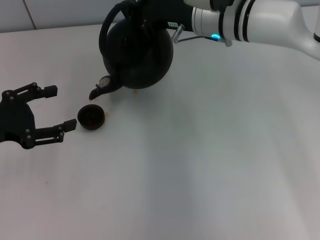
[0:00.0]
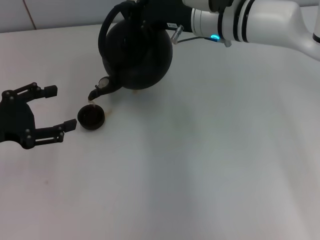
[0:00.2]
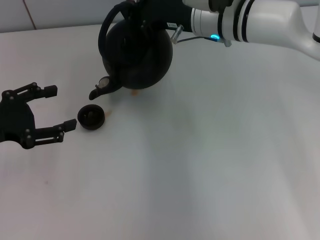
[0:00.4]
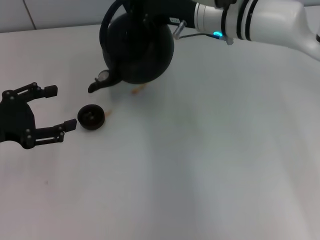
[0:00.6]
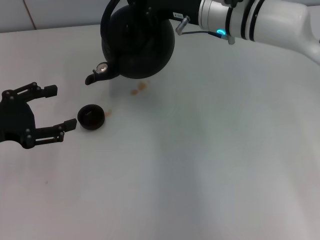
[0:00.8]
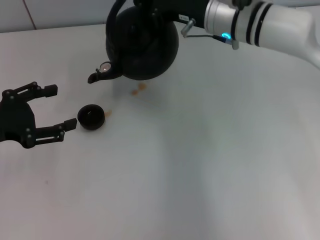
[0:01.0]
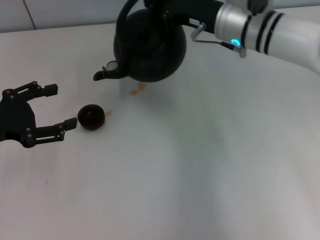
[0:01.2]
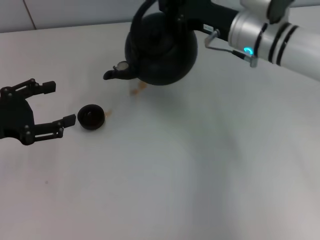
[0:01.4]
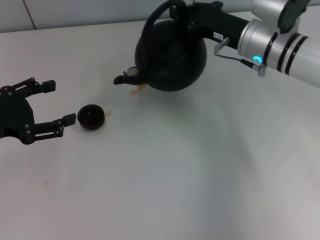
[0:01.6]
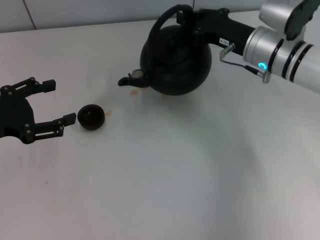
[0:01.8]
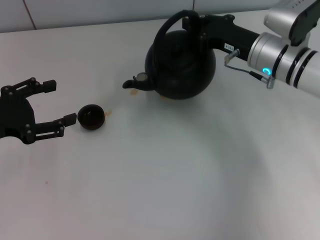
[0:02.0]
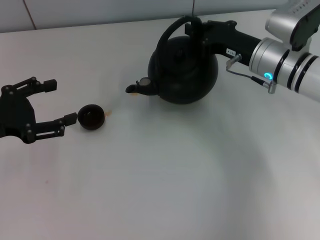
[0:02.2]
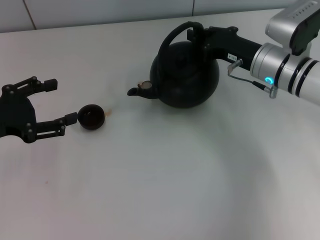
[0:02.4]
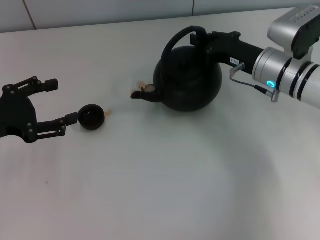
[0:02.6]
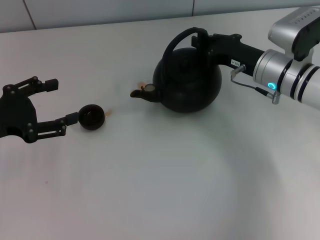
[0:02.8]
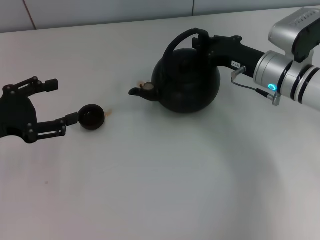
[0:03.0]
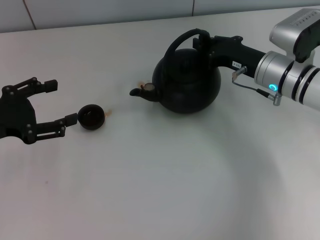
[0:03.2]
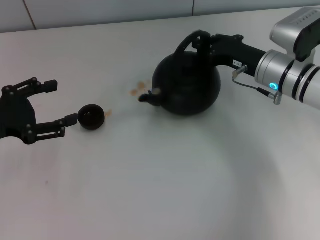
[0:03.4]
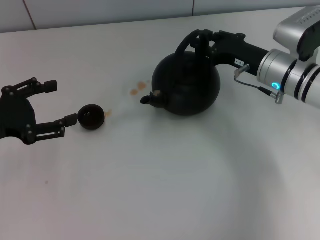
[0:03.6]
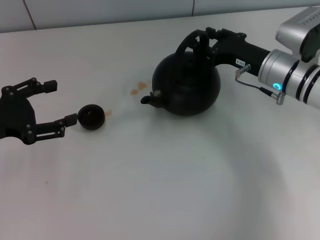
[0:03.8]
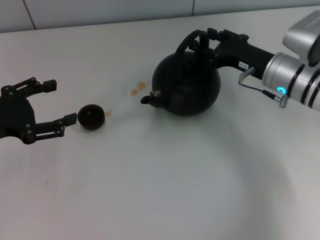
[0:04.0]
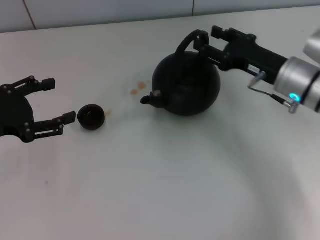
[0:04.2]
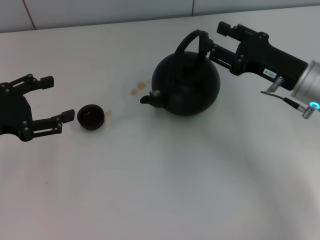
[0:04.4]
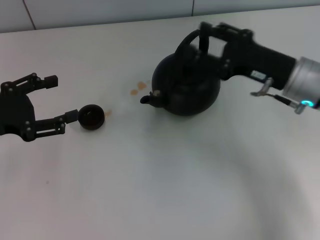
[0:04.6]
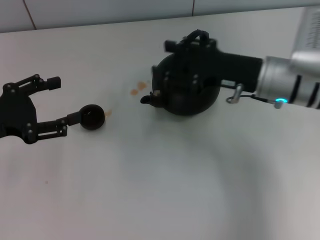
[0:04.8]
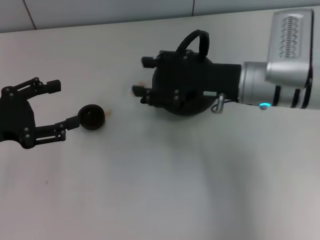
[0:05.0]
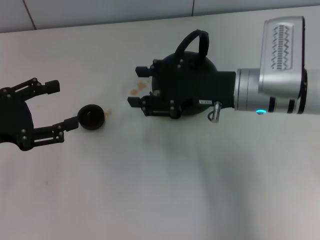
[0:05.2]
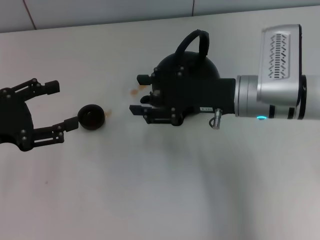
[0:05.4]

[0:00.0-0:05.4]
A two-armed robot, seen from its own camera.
Task of the whole recording: Grasp the handle of the teapot with one hand and pour tea into the teacup.
Step, 0:01.6 to 0:03.4: Put down the teapot with the right gripper.
0:00.0 to 0:01.4: The right gripper goes about 5 cm to the right.
0:01.4 to 0:02.8: The right gripper moves about 5 cm.
0:02.8 to 0:04.0: The right gripper opens up.
0:04.0 to 0:05.4: The right gripper moves to the left, some 5 cm.

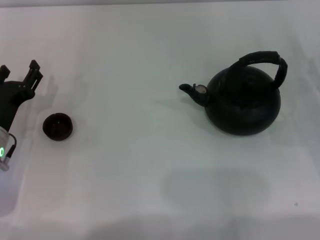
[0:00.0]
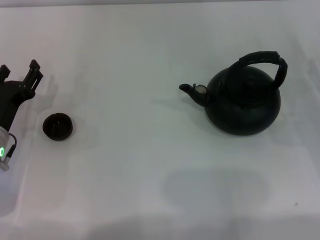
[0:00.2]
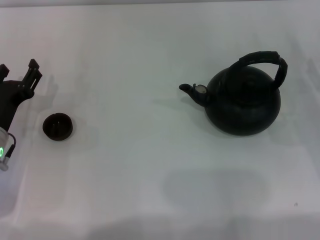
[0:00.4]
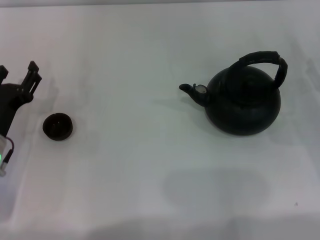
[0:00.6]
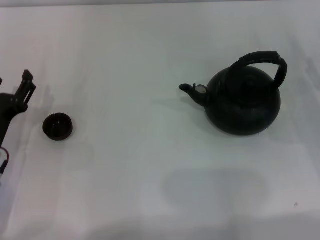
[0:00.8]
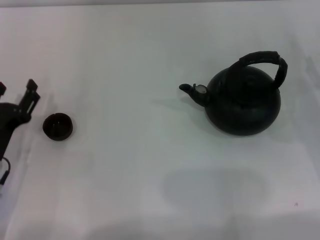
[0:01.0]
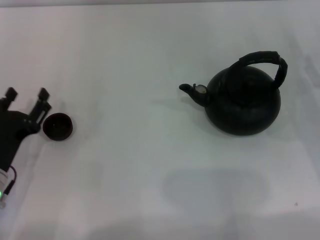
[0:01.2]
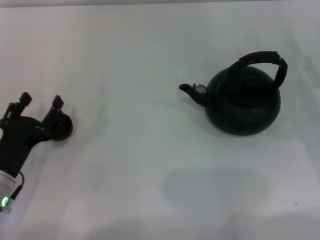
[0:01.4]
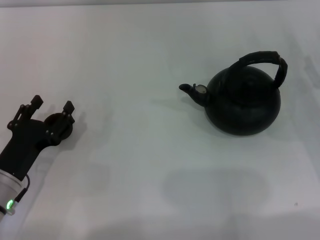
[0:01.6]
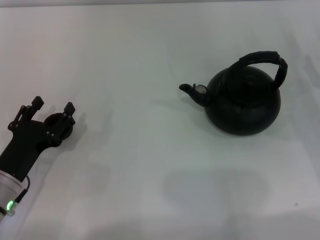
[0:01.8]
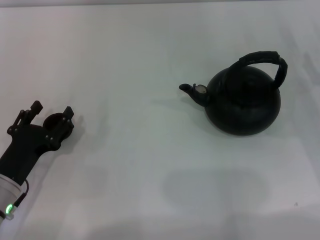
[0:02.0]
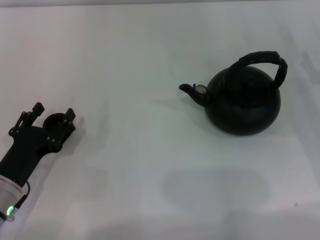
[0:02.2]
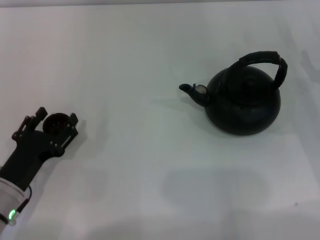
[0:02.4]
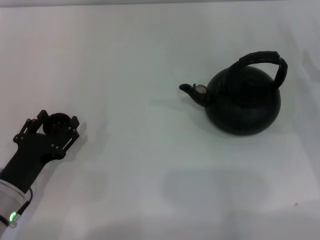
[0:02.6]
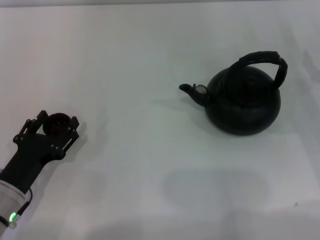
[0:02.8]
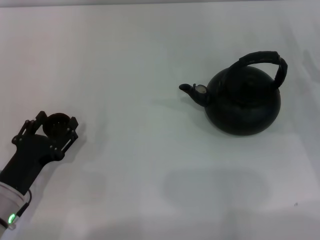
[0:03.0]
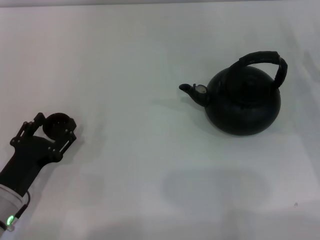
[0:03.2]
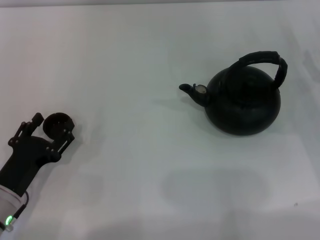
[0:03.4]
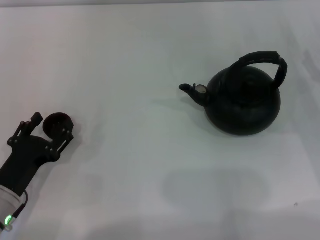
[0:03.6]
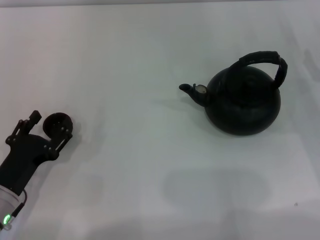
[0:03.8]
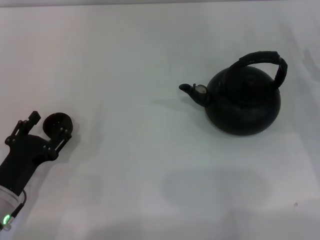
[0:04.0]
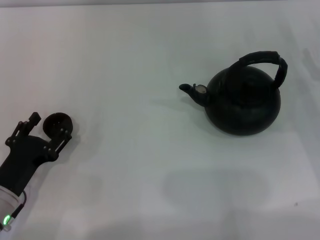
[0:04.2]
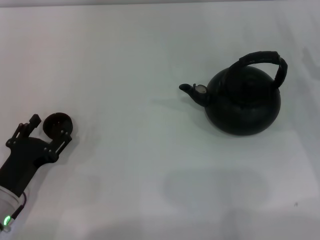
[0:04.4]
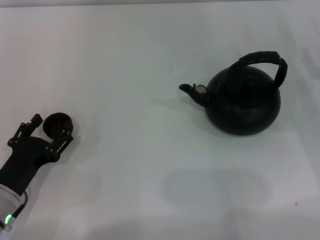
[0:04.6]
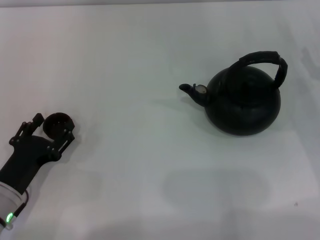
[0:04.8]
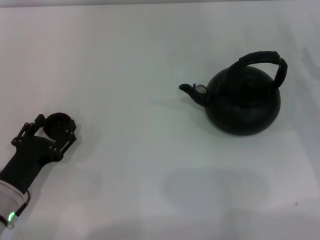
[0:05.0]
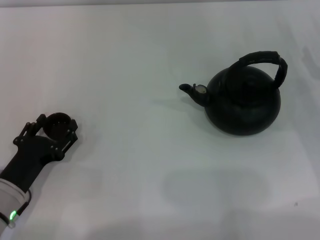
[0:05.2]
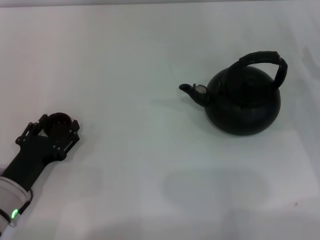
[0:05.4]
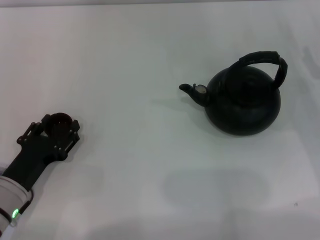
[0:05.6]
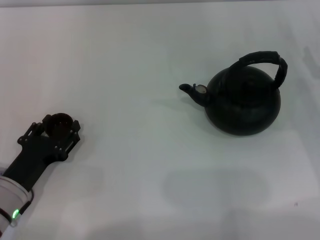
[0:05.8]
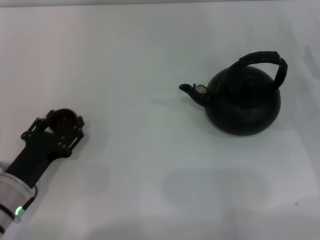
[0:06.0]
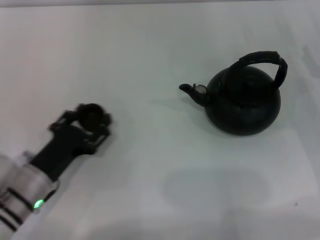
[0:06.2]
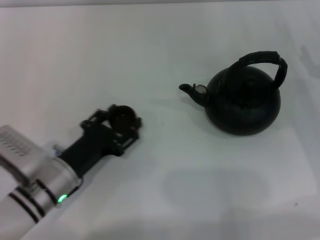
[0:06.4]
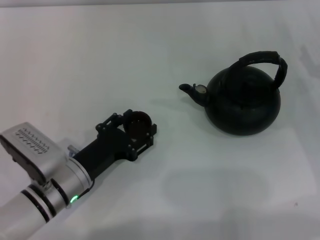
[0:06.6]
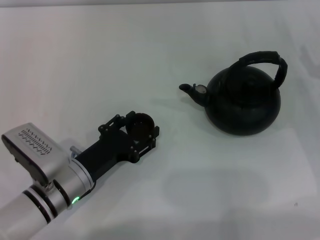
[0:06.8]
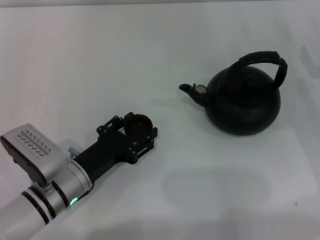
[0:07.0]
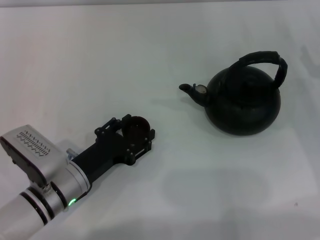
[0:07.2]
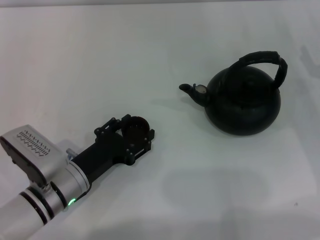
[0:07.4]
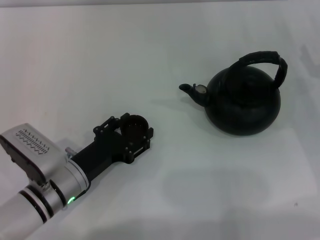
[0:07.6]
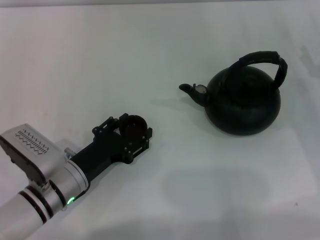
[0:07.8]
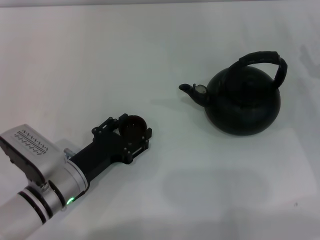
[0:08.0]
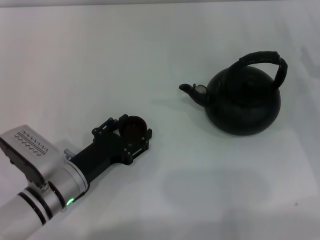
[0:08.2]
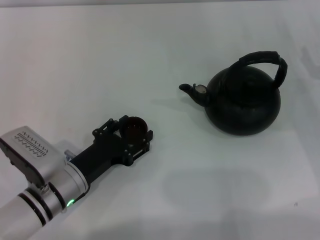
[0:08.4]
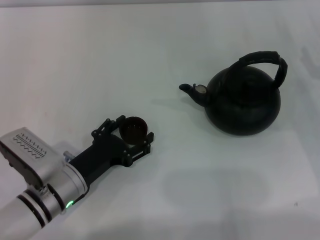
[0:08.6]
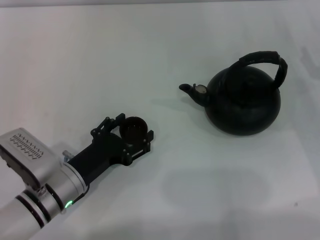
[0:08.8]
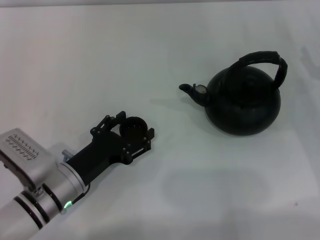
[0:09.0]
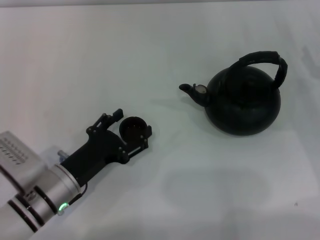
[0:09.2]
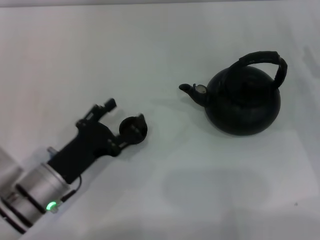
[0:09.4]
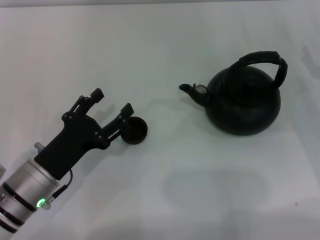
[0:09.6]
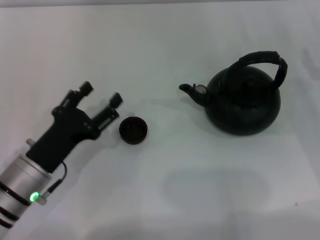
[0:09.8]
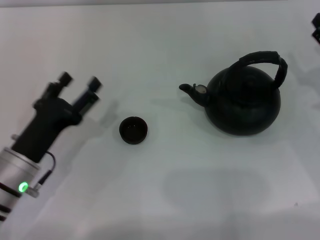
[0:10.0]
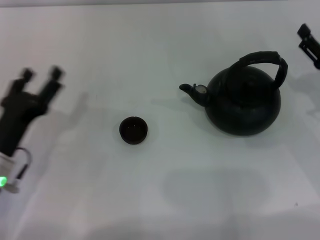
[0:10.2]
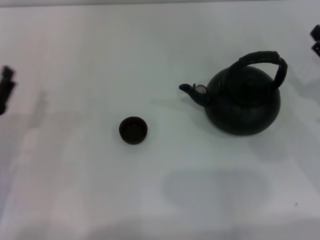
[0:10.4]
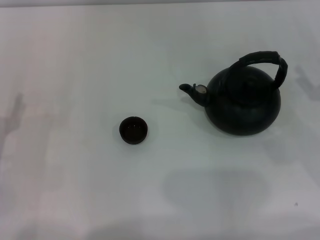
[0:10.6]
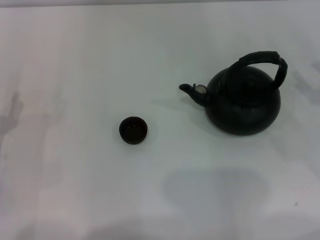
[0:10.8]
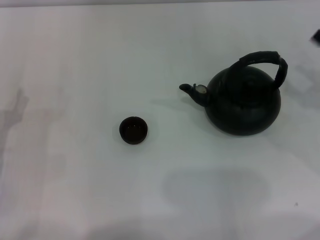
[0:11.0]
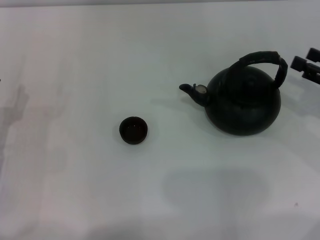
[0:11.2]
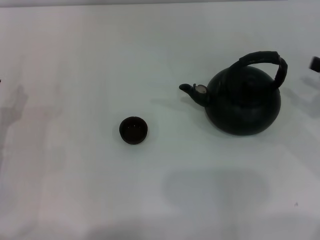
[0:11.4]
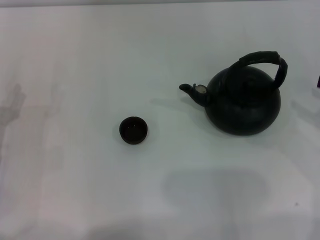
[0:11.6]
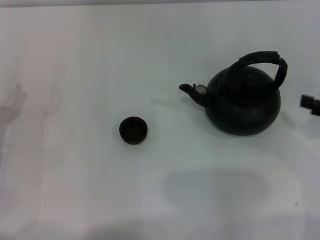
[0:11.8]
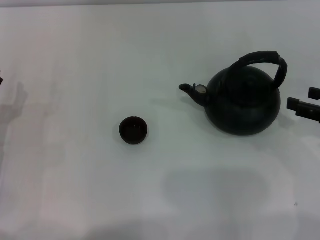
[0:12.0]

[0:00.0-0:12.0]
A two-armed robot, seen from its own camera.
Task of the whole recording: Grasp the handle of the teapot with one hand and pour tea into the teacup.
Step, 0:00.0 to 0:05.8: Pick up the teacup with the left gripper.
Step, 0:06.2 to 0:09.6: Place the teacup in the center of view with the left gripper.
0:00.0 to 0:01.6: The left gripper is displaced backward by approximately 5 cm.
0:01.6 to 0:03.0: The grippers move only a little.
0:03.0 to 0:04.4: Neither gripper changes place.
0:04.4 to 0:06.0: The left gripper closes its fingers.
0:06.0 to 0:07.6: The left gripper travels to the right by approximately 5 cm.
0:07.6 to 0:09.0: The left gripper opens up.
0:09.0 to 0:10.4: The left gripper shifts about 10 cm to the left.
0:10.4 to 0:12.0: The right gripper shifts roughly 5 cm upward.

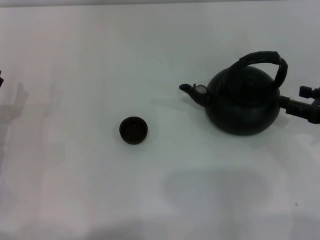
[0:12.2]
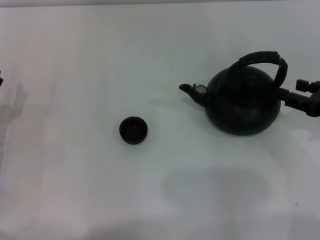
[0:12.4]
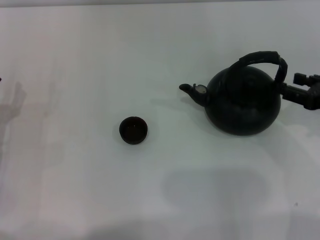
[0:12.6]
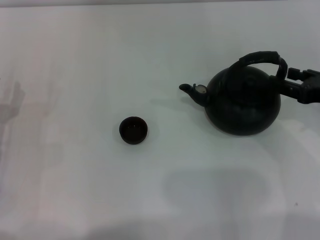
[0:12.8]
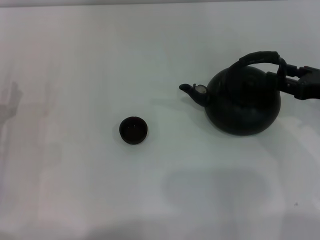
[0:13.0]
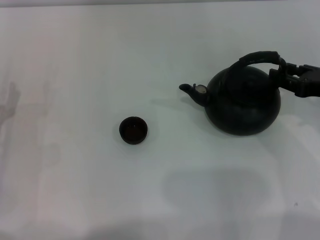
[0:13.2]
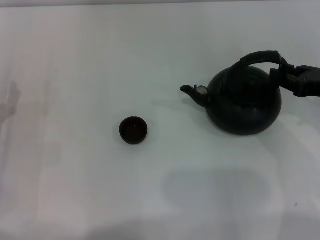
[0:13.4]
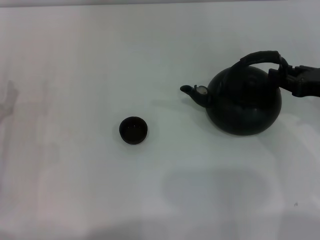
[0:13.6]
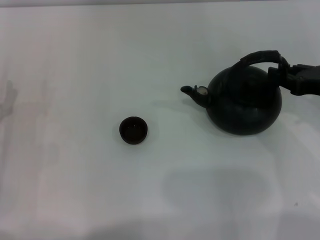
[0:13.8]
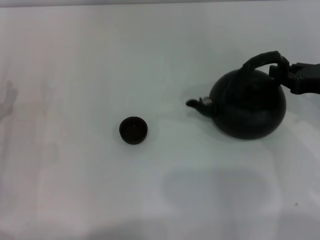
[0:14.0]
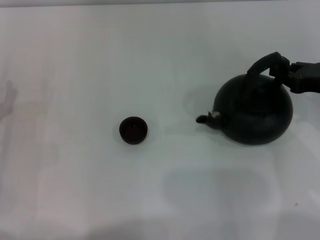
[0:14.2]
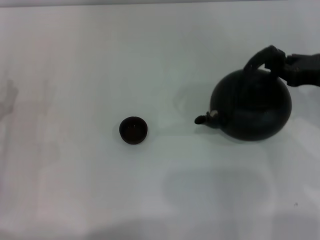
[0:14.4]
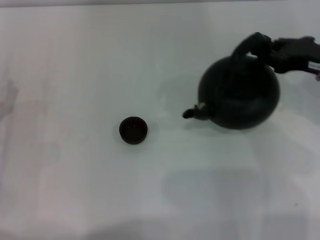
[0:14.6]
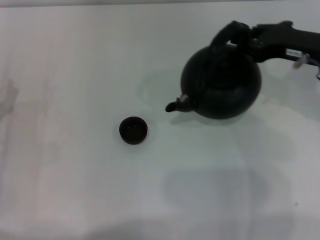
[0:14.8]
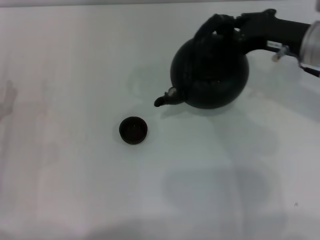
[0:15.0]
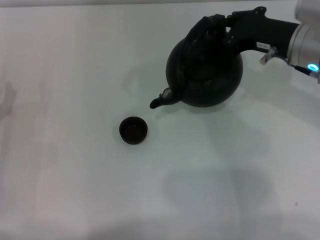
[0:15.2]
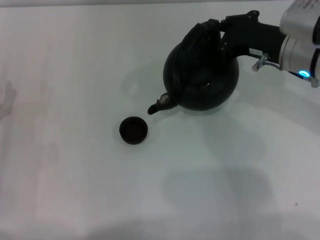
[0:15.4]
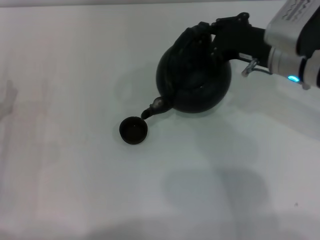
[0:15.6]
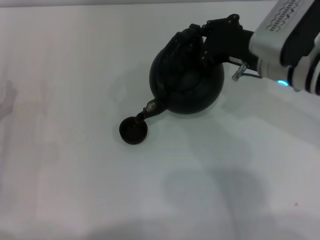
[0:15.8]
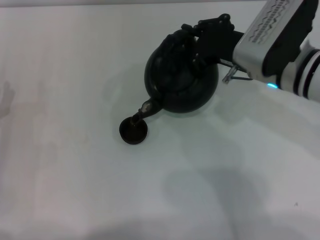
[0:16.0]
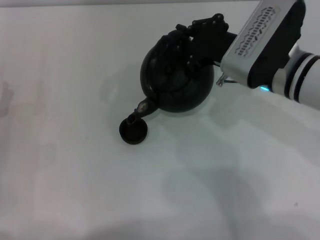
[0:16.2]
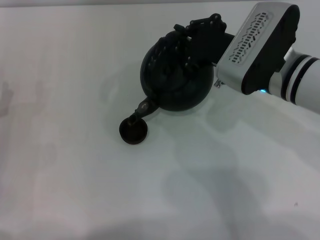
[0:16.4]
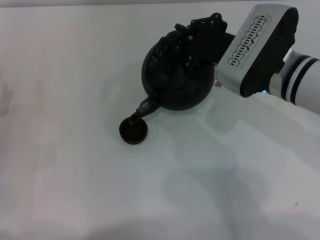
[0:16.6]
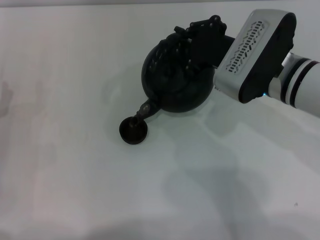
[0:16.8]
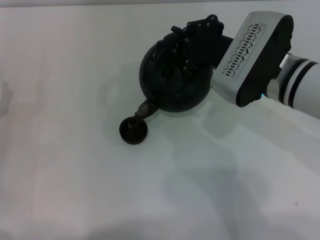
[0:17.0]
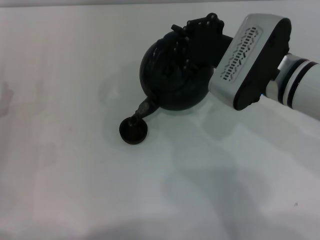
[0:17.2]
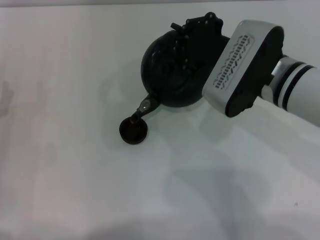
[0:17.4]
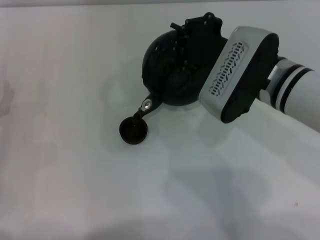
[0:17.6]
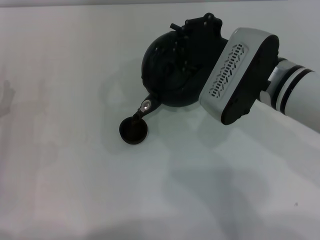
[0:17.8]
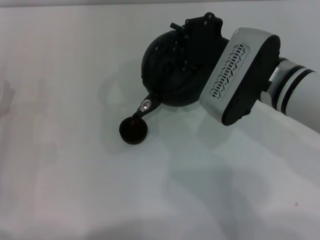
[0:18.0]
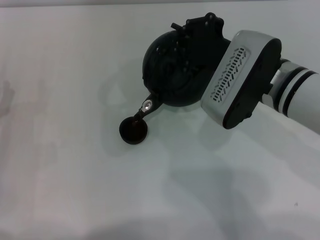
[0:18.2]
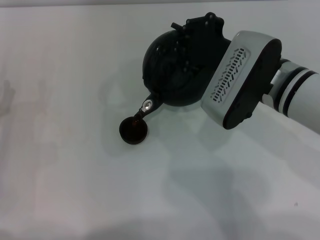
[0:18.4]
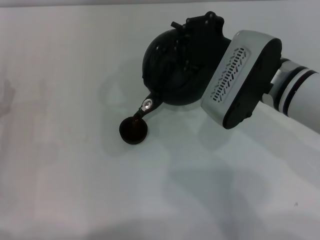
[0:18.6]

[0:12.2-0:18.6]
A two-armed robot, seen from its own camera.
Task of the whole recording: Grasp the handle of the teapot with one hand and pour tea into the teacup.
Step, 0:12.2 to 0:14.6: Pick up the teapot with the right gripper.
0:12.2 to 0:13.8: The right gripper closes.
0:13.8 to 0:15.4: The right gripper heads to the left and forward, covering approximately 10 cm.
0:15.4 to 0:17.0: The right gripper goes roughly 5 cm to the left.
0:17.0 to 0:18.6: The grippers move only a little.
